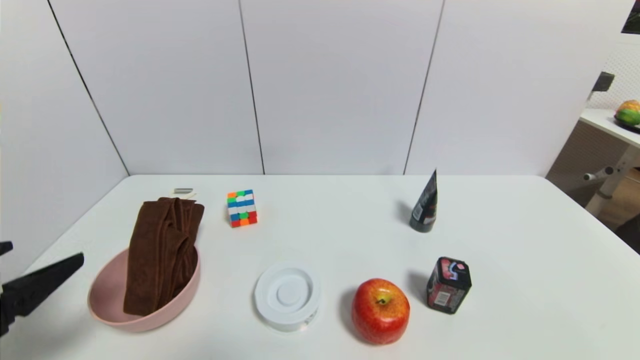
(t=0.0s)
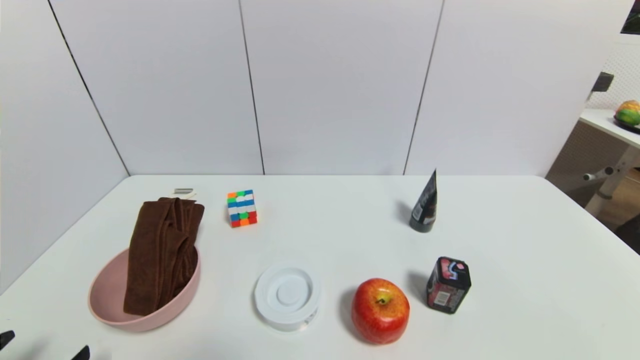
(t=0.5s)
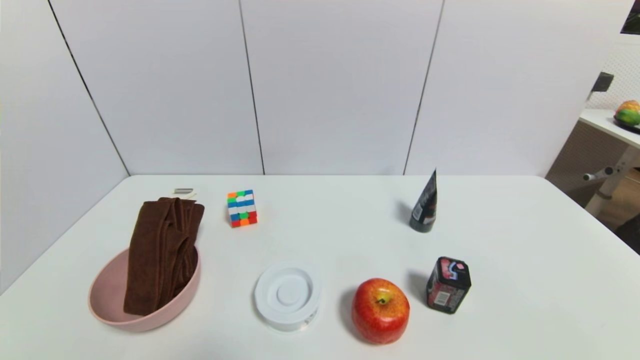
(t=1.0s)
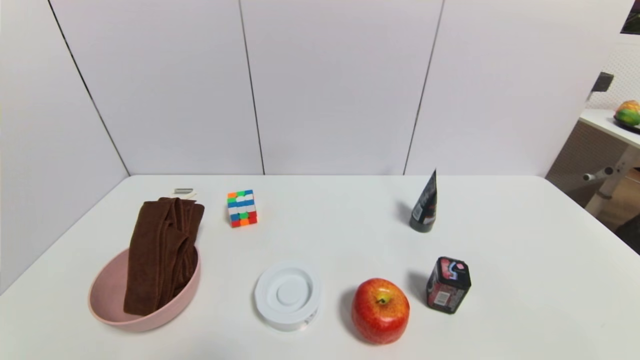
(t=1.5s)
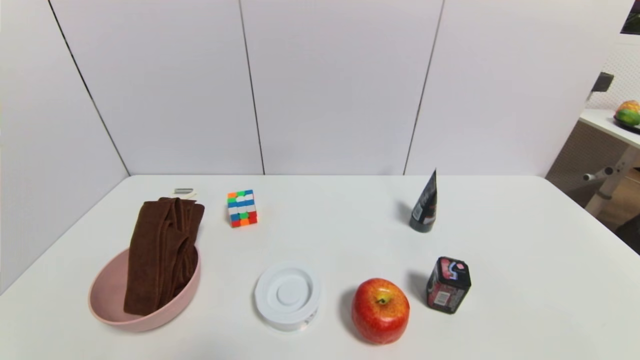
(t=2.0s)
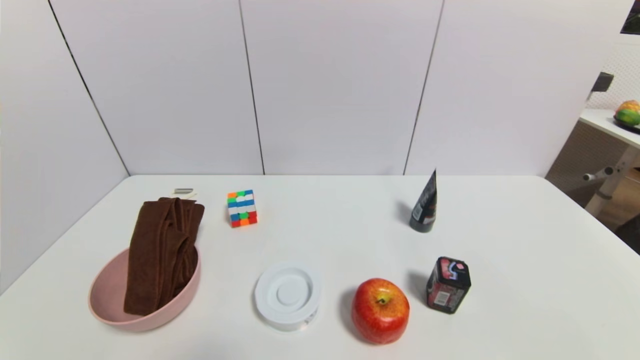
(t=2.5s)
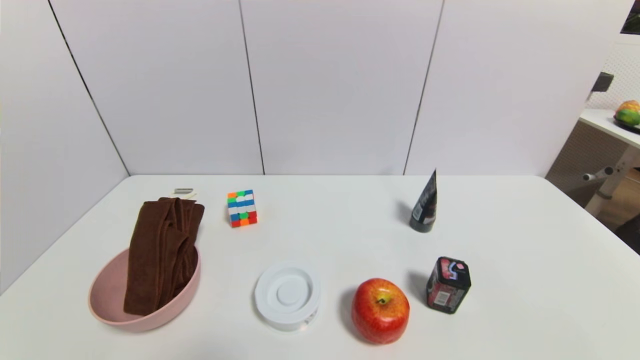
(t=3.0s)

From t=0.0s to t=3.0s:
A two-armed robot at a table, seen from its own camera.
Task of the whole recording: use a gripper to pick the target object and place on the pink bowl.
From t=0.0s to t=1.5s: The left gripper heads downward and backward, covering about 15 cm.

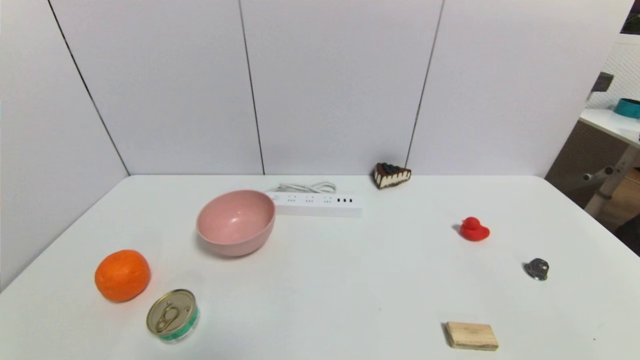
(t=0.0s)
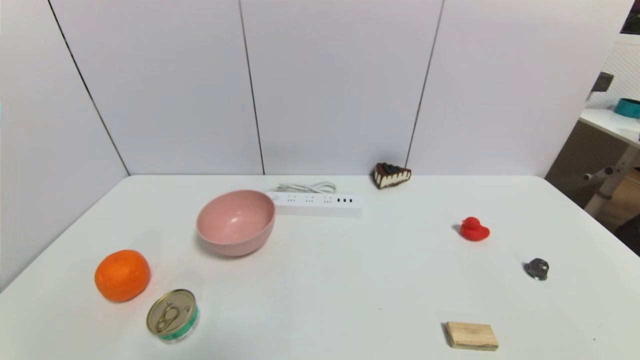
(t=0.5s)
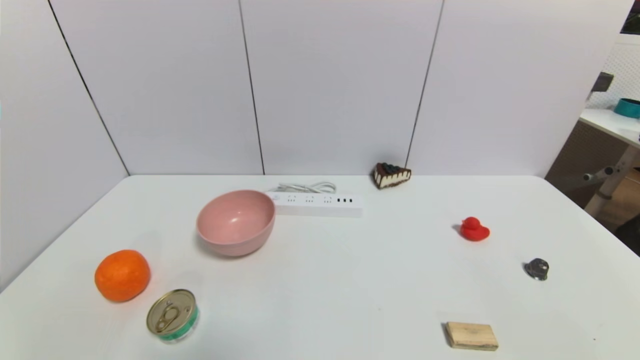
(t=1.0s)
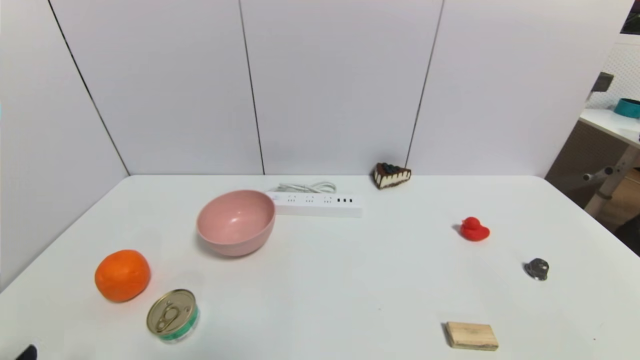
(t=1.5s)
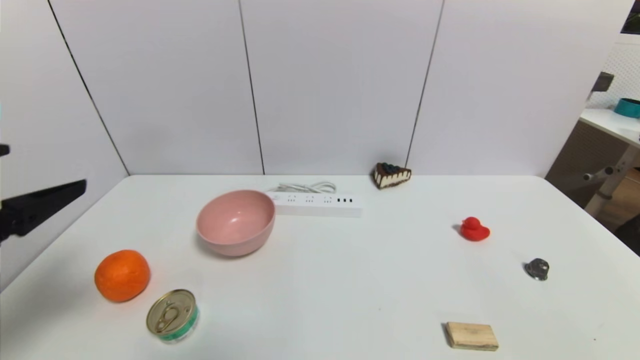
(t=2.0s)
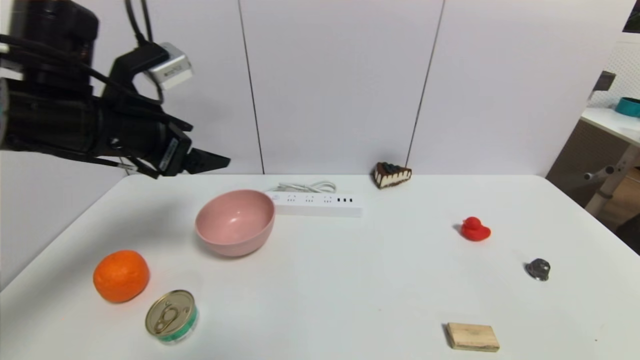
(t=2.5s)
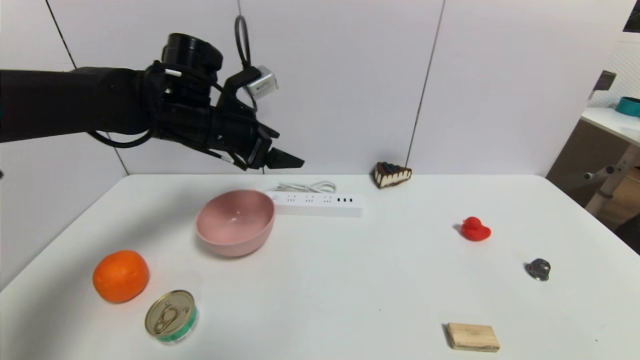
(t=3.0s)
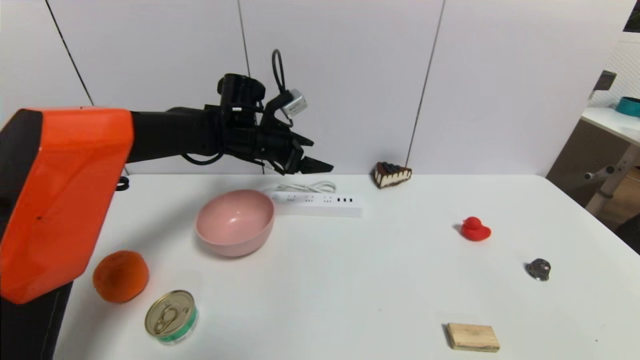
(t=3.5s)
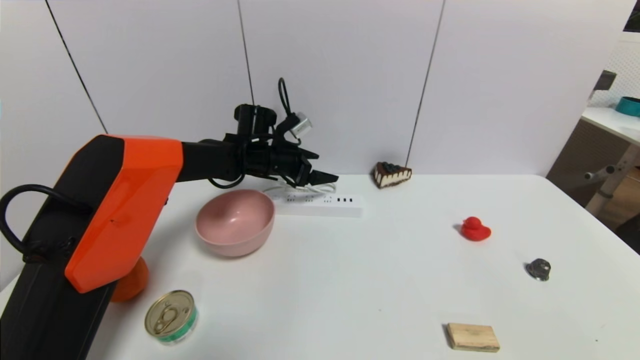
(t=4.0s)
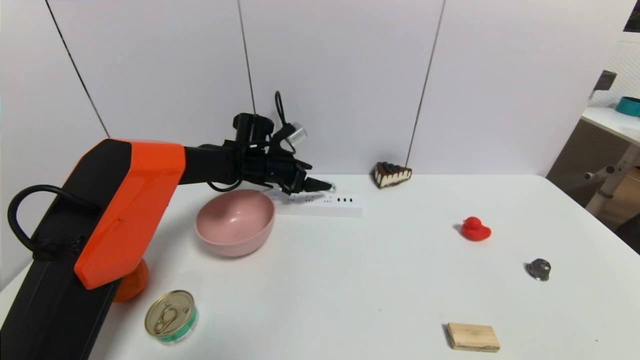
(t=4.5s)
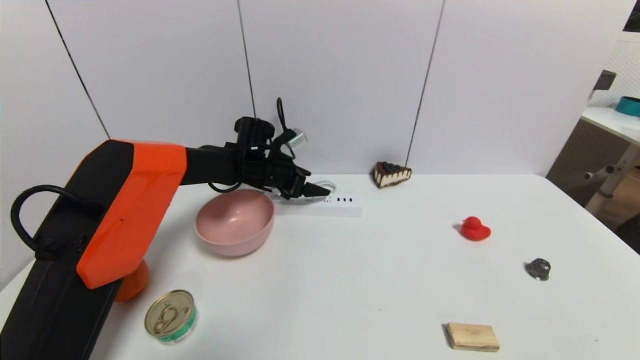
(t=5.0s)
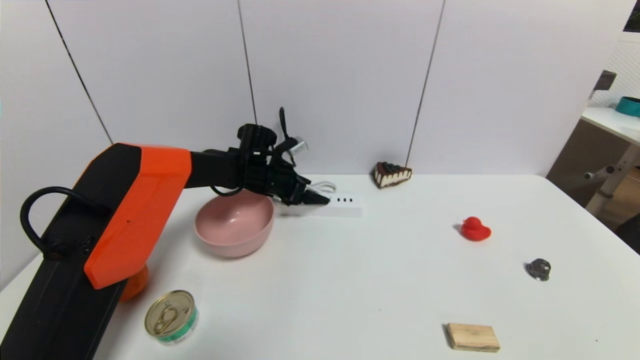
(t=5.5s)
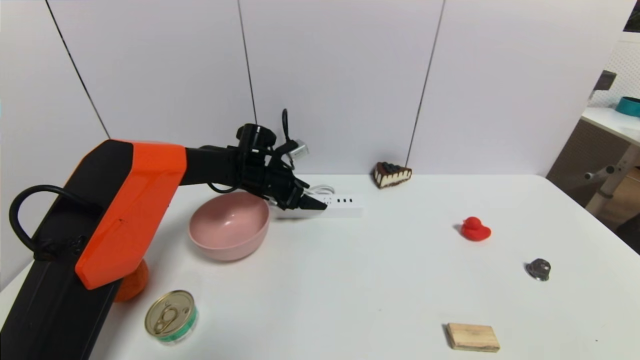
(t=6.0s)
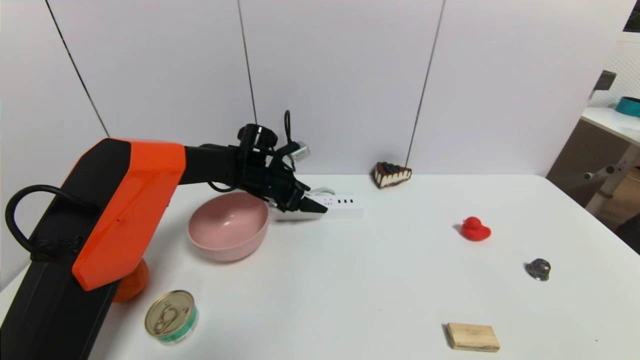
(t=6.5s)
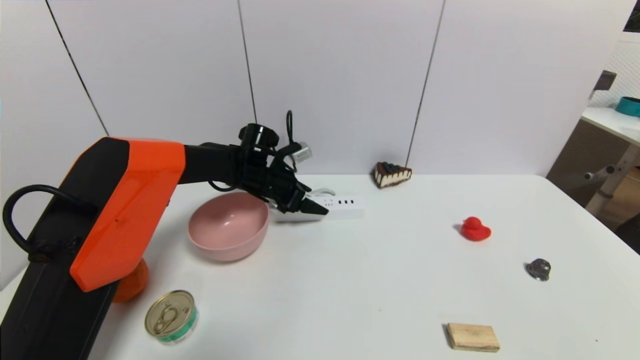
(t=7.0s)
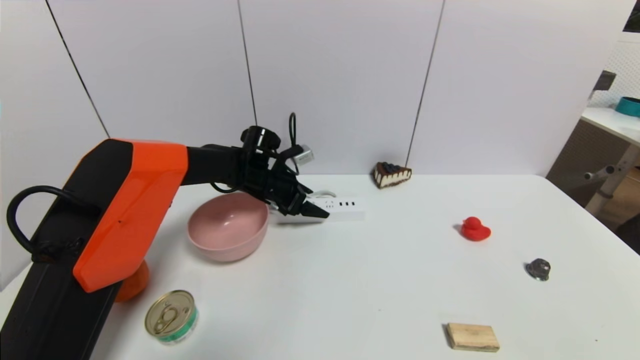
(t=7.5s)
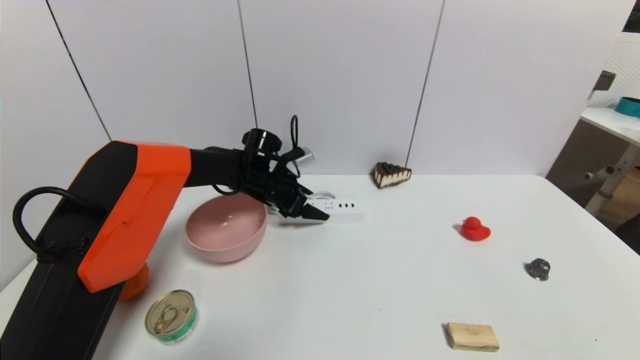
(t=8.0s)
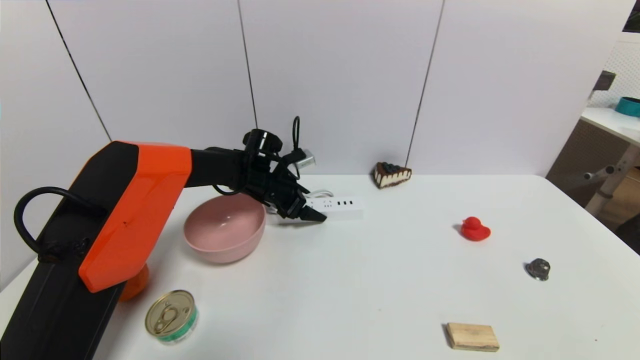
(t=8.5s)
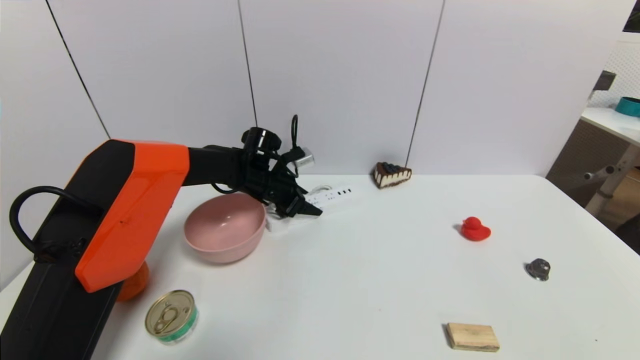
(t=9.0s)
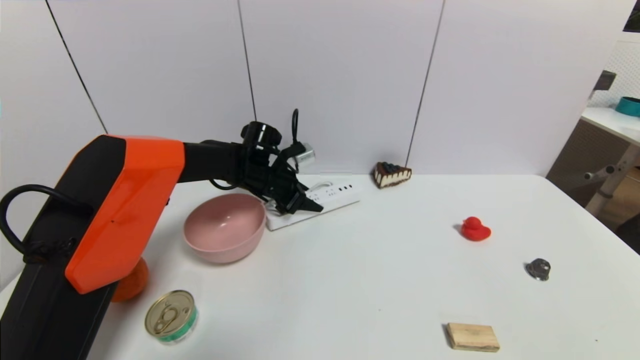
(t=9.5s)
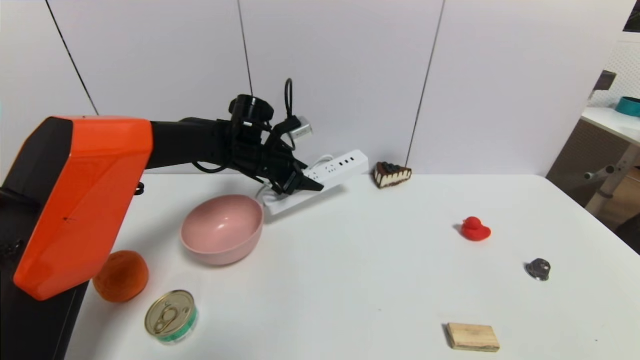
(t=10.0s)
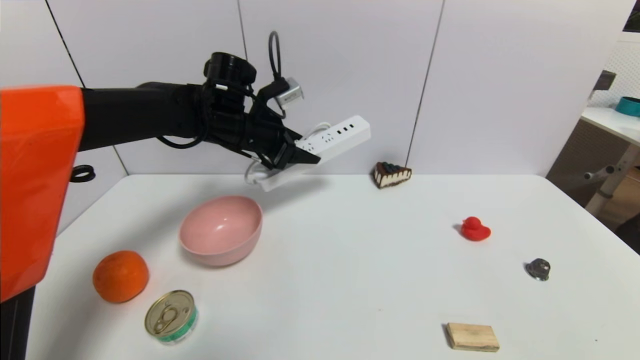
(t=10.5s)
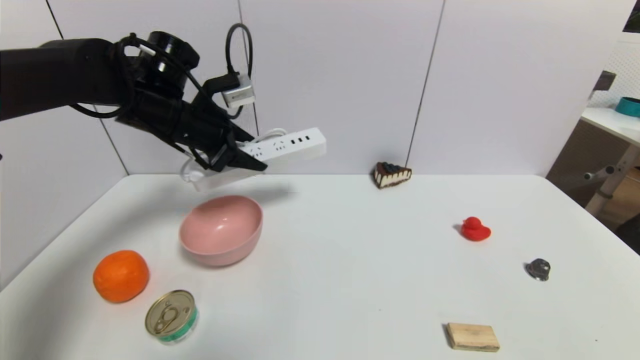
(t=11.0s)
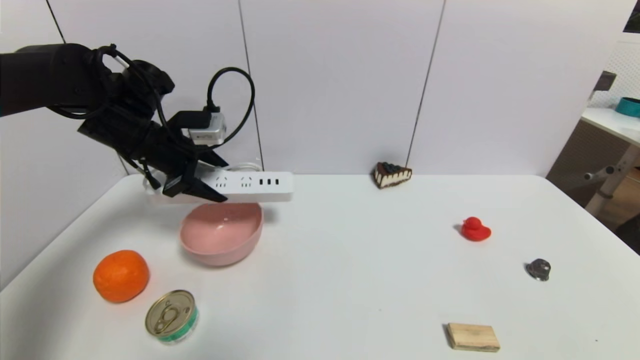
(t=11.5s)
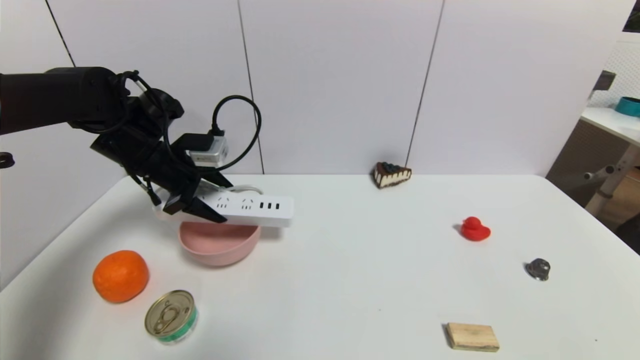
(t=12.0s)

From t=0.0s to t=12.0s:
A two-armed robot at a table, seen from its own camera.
Task of the whole recording: use a gripper to pick the target object and place on the pink bowl.
Step, from t=0.0s to t=9.0s: Grasp the plugboard with the left gripper.
From t=0.0s to t=2.0s: The left gripper moves upward and forward, about 25 cm.
From t=2.0s to t=4.0s: The left gripper travels forward and to the right by about 40 cm.
From t=4.0s to t=8.0s: The grippers stay close to where they were, moving slightly.
From t=8.0s to t=10.0s: The left gripper moves upward, roughly 10 cm, and closes up.
From t=10.0s to t=12.0s: The left gripper travels to the left and backward by about 15 cm.

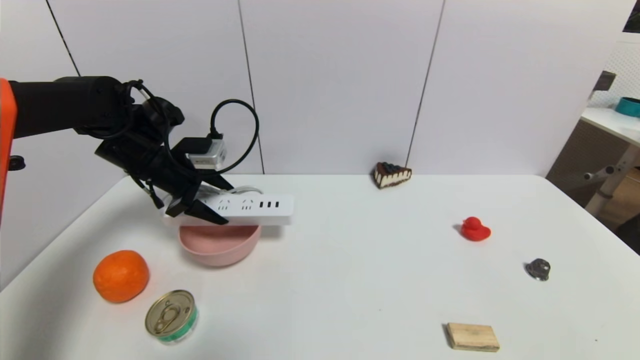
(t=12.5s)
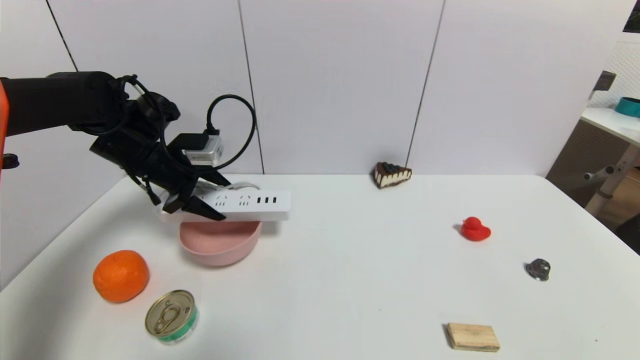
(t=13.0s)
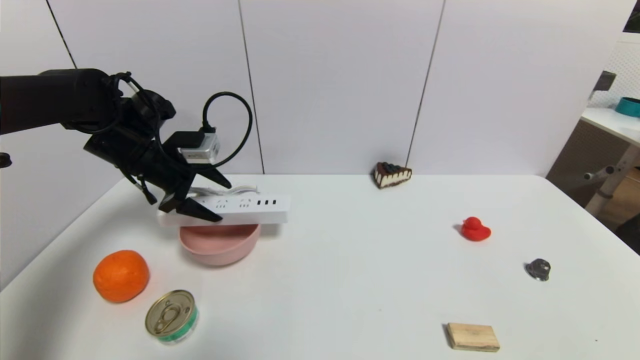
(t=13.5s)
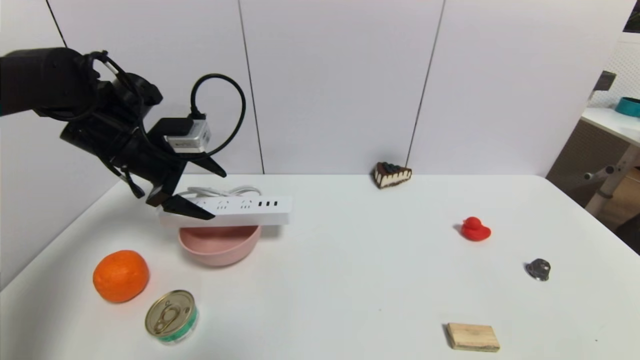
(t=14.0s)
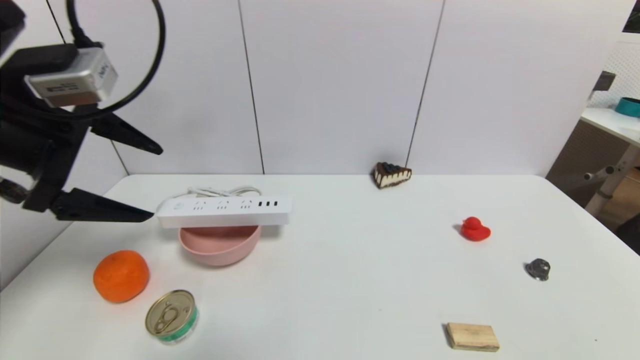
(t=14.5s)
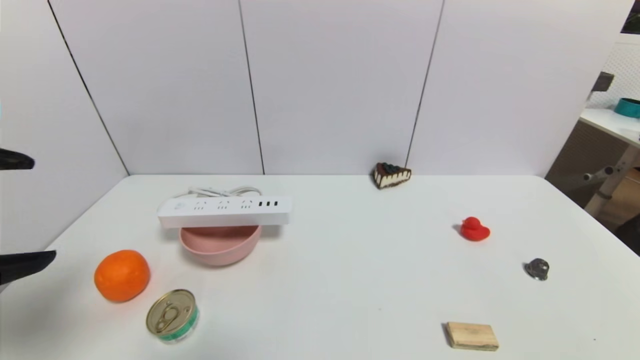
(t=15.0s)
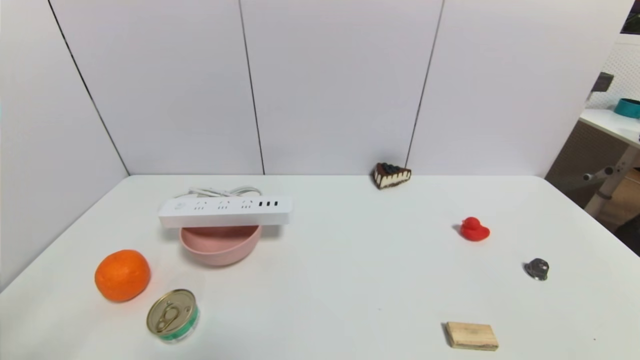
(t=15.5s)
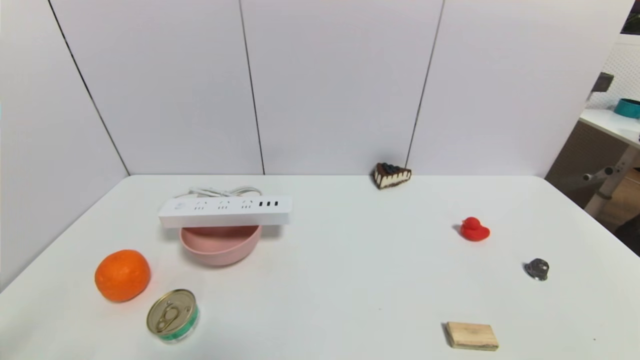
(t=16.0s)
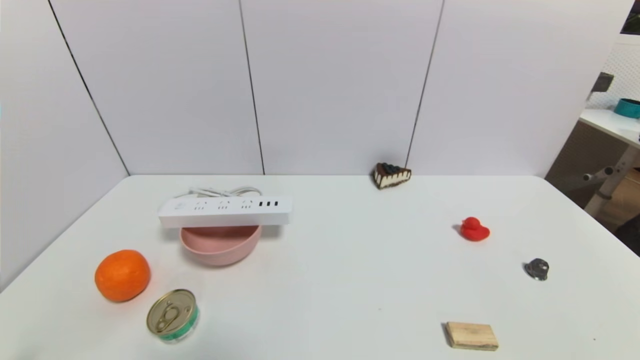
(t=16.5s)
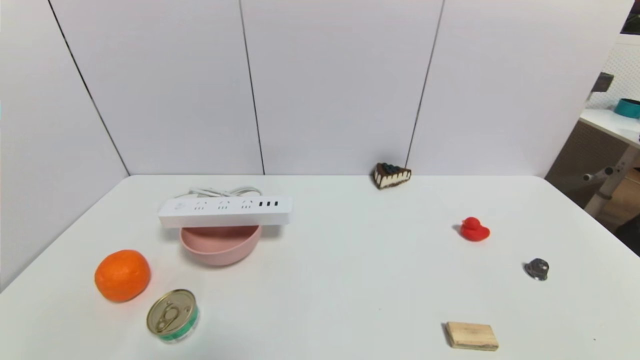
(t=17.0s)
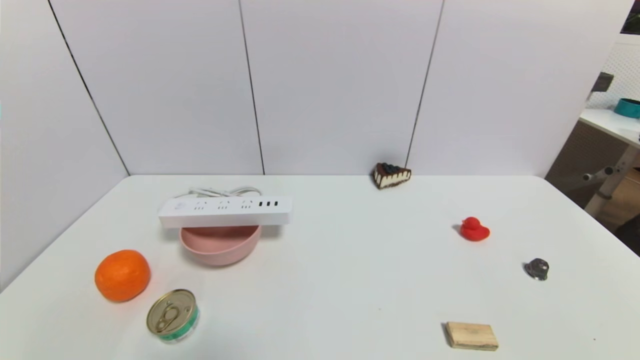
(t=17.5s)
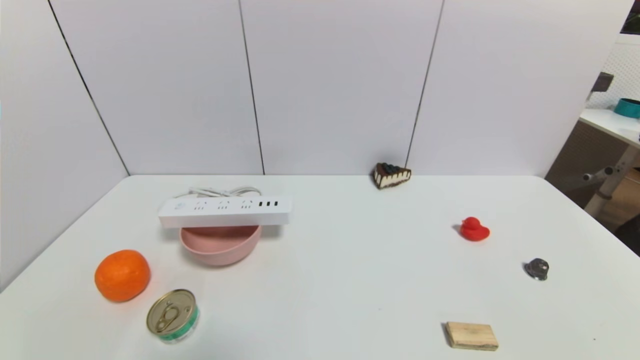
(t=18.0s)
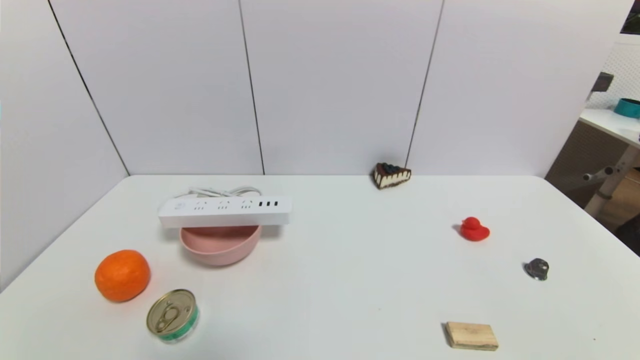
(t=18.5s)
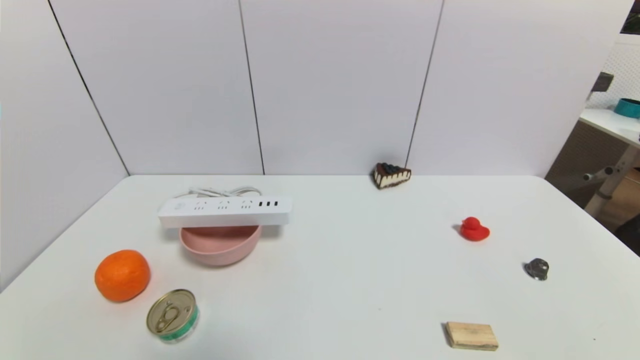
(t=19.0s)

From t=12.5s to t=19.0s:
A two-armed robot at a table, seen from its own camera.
Task of the whole recording: use a gripper to pick the target object and place on the pink bowl.
From t=12.5s to t=14.5s: The left gripper shifts some 20 cm backward and upward, and opens.
From t=14.5s to t=17.0s: The left gripper shifts about 35 cm downward and backward.
